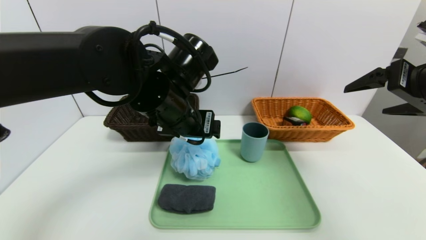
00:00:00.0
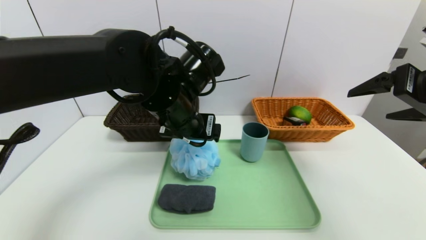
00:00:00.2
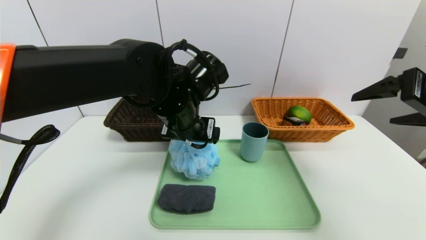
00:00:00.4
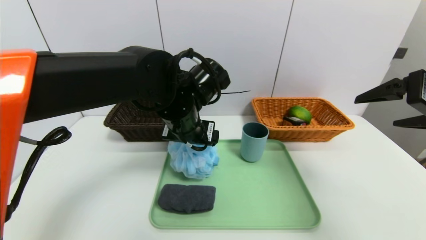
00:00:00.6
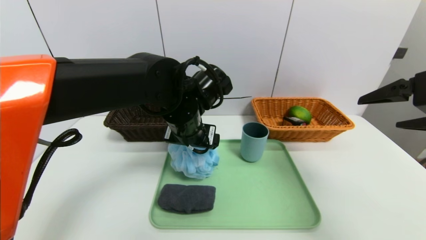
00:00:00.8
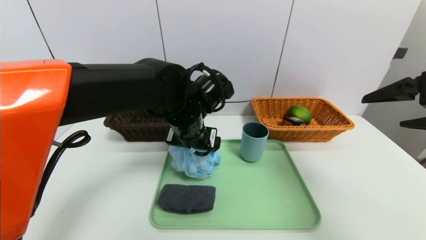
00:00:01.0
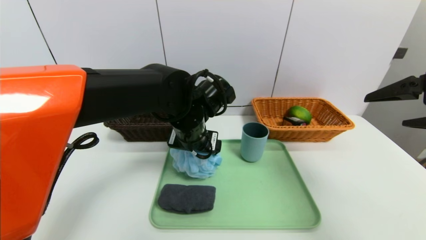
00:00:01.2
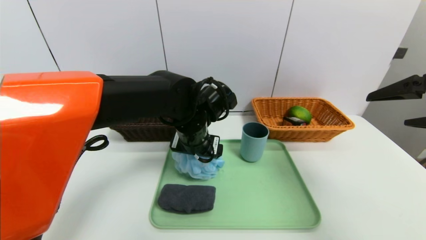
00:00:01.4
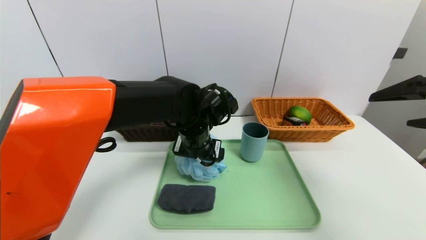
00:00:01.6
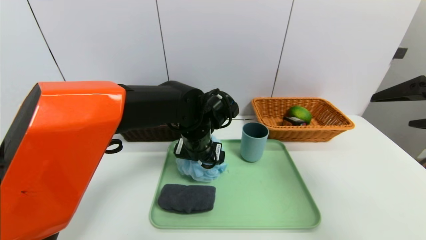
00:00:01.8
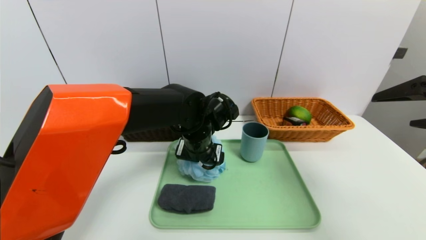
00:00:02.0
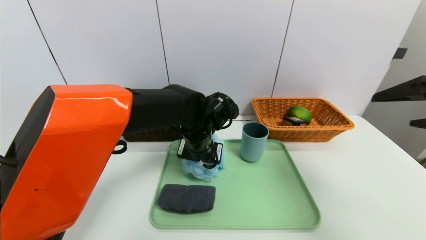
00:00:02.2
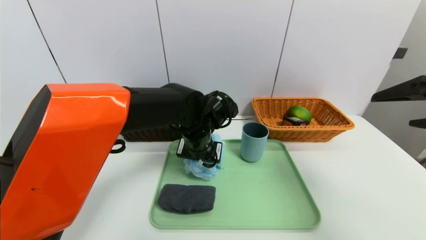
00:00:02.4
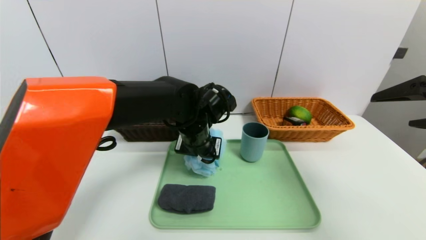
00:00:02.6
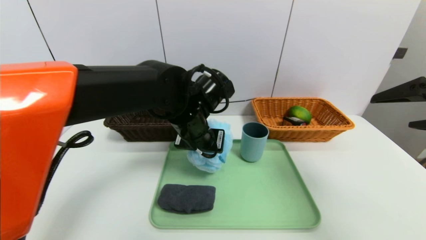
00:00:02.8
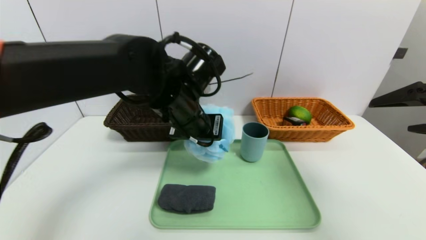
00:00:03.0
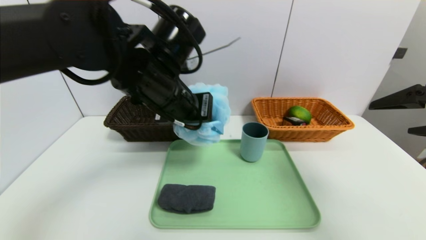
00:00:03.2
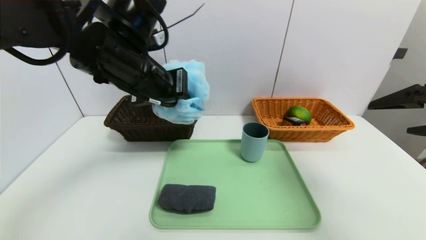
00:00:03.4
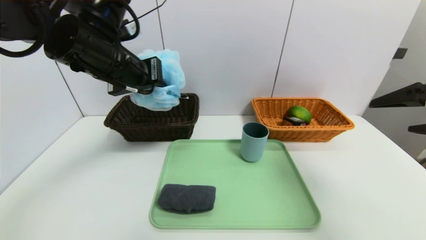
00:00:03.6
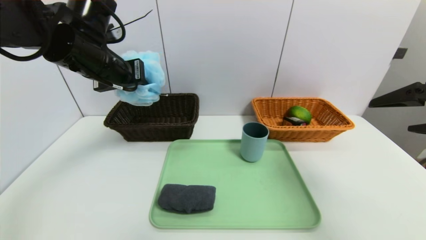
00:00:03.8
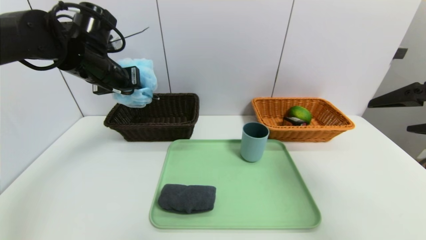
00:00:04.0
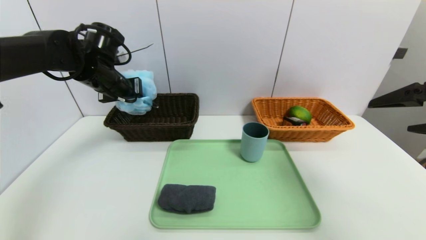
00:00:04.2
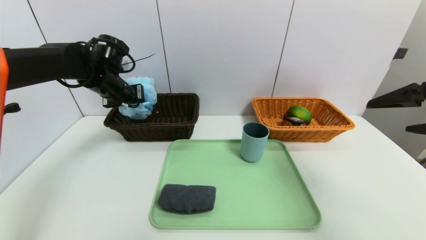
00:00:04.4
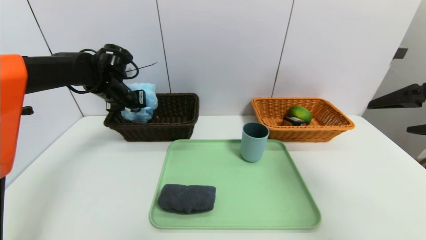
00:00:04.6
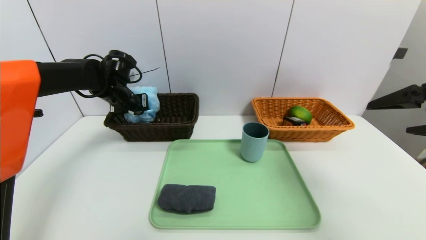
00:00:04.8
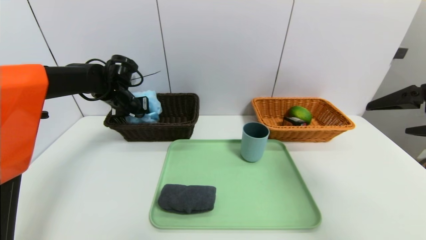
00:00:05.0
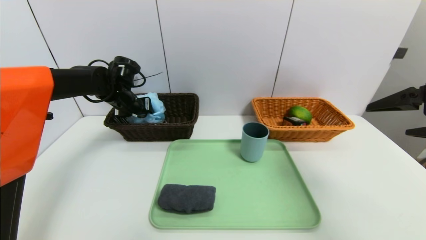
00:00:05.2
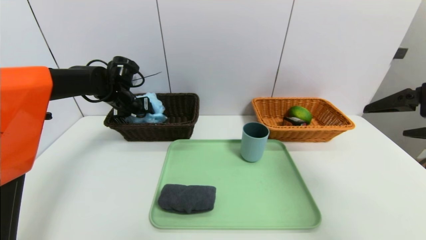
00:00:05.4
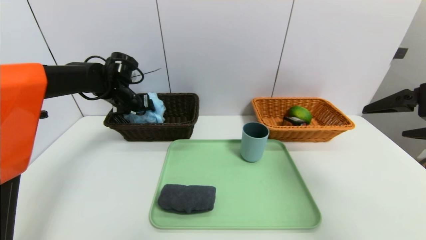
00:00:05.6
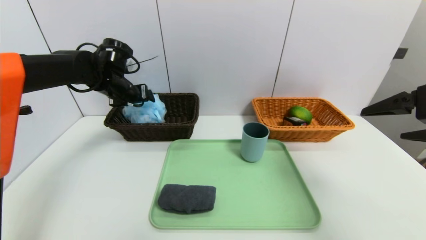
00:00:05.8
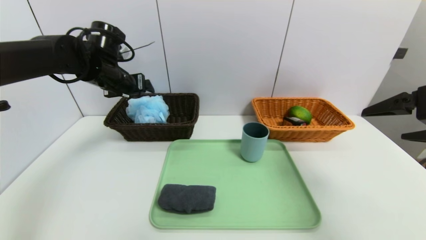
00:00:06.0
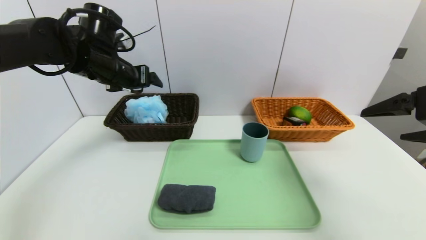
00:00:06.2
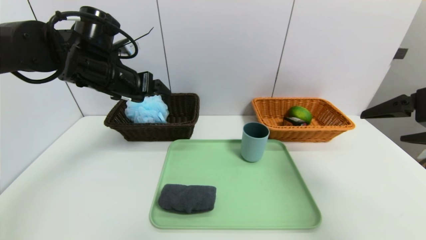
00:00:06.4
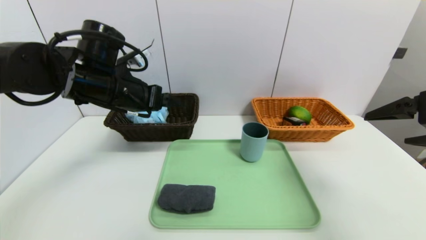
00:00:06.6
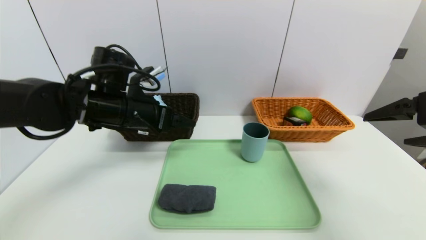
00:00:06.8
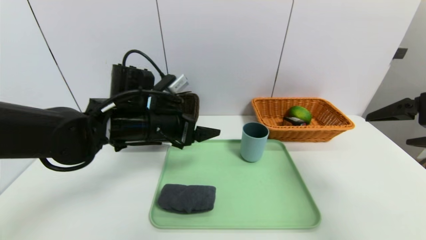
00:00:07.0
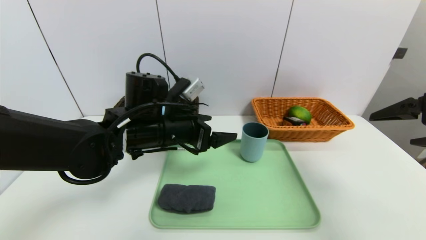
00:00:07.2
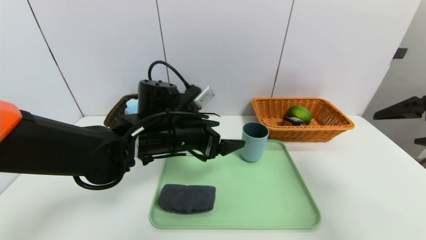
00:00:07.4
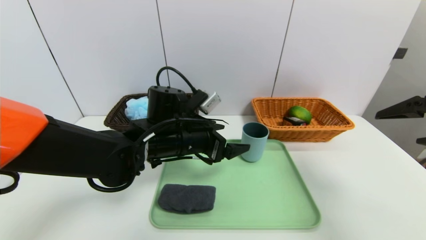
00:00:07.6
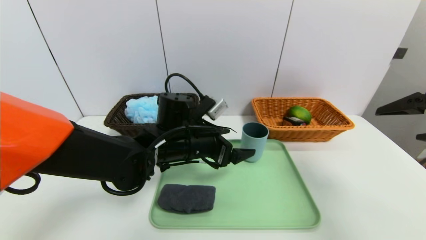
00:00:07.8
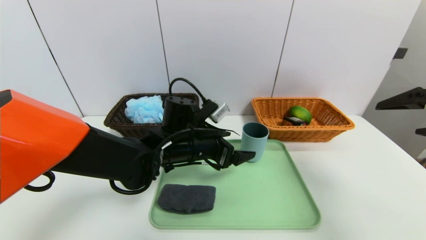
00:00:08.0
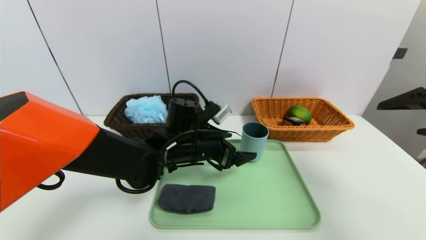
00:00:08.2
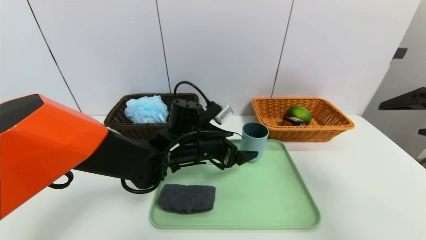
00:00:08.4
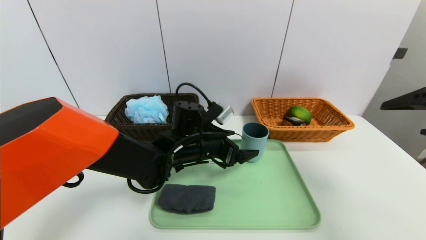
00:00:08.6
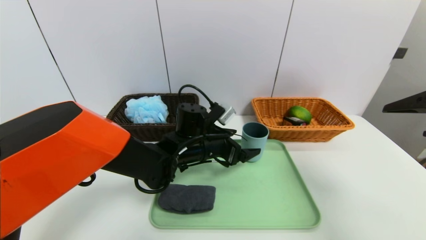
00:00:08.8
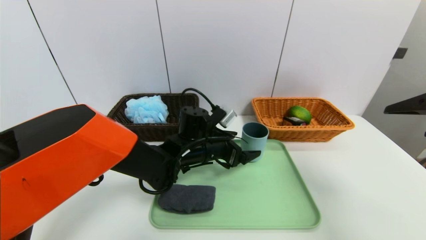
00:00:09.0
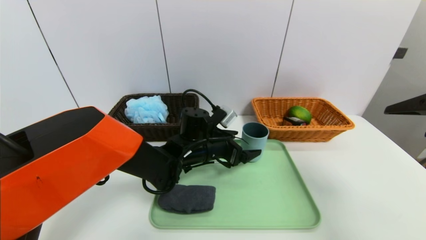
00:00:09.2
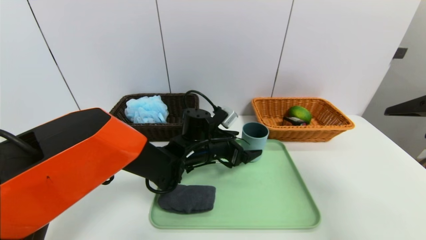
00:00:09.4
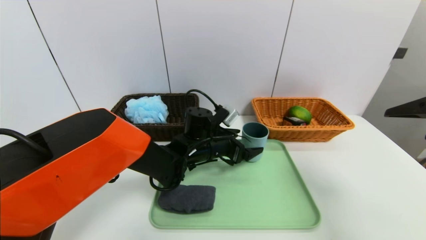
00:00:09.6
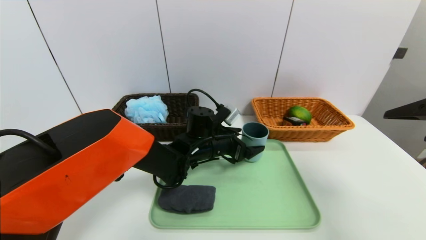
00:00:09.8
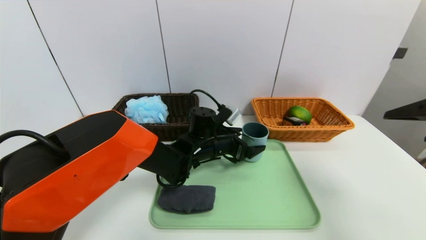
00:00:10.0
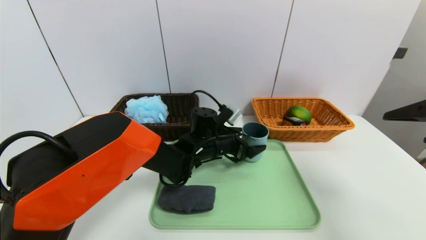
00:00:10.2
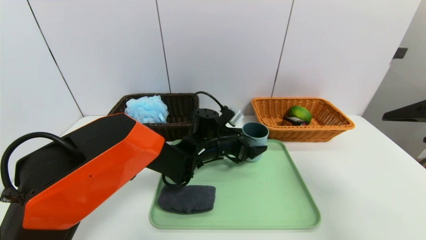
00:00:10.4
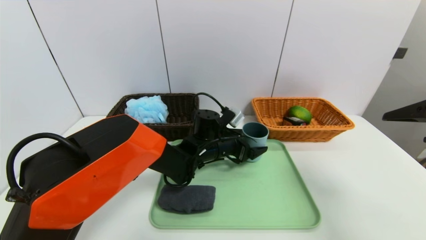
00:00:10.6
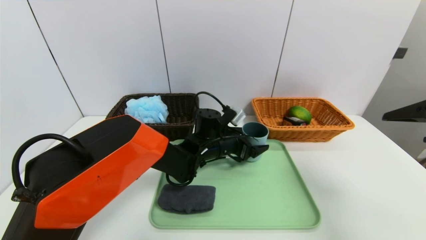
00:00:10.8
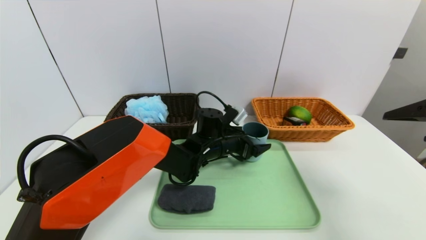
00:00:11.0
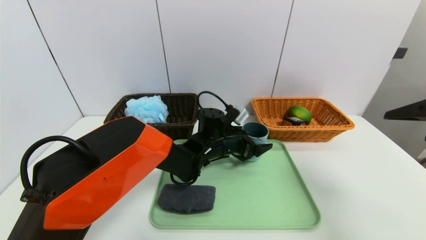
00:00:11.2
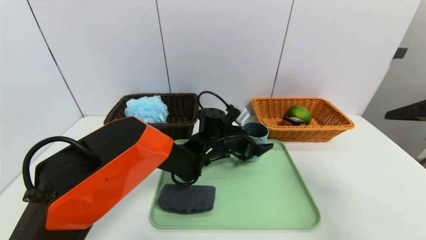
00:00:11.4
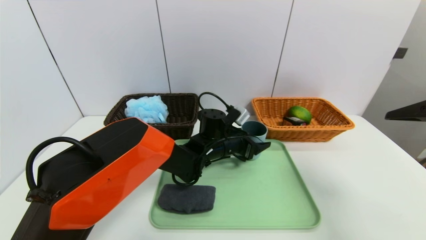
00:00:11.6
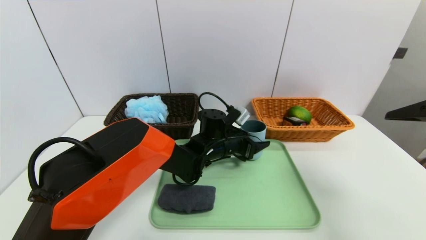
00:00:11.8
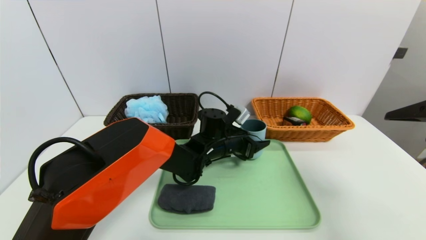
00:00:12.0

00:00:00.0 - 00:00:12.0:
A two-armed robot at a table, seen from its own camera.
Task of the whole recording: place the food in the right basket with the right gripper, and place the non food items in the left basket with the left gripper.
Step, 00:00:00.0 - 00:00:06.0: Grasp the bath ball and put it in the left basket.
00:00:00.0 - 00:00:01.6: The right gripper heads backward, covering about 5 cm. The left gripper moves downward, roughly 10 cm.
00:00:01.6 - 00:00:03.0: The left gripper moves upward, approximately 10 cm, and closes up.
00:00:03.0 - 00:00:04.4: The left gripper shifts approximately 20 cm to the left and forward.
00:00:04.4 - 00:00:06.0: The left gripper opens.
00:00:06.0 - 00:00:07.6: The left gripper travels to the right, backward and downward by roughly 20 cm.
00:00:07.6 - 00:00:09.0: The left gripper heads downward, covering roughly 5 cm.
00:00:09.0 - 00:00:10.4: There are only small adjustments of the grippers.
00:00:10.4 - 00:00:12.0: The left gripper closes.

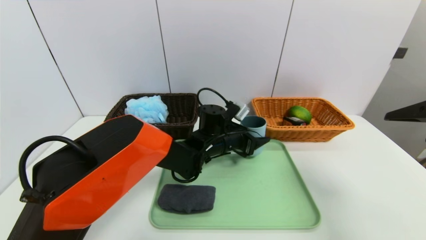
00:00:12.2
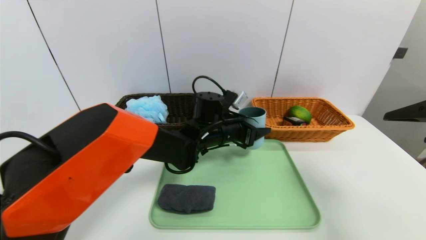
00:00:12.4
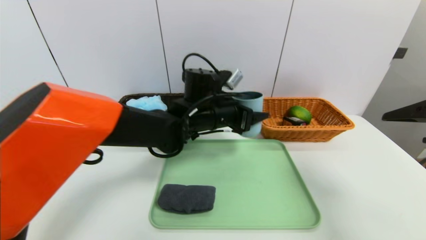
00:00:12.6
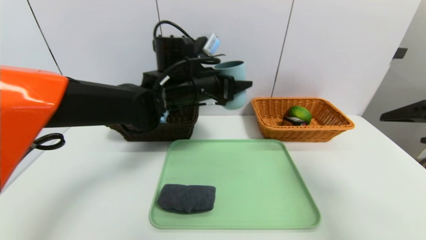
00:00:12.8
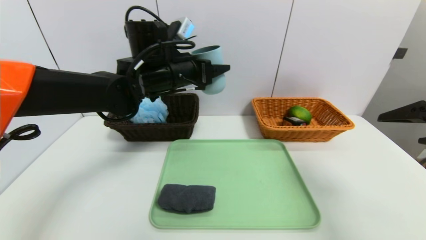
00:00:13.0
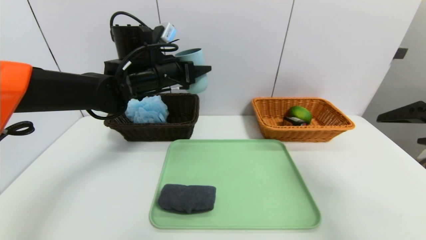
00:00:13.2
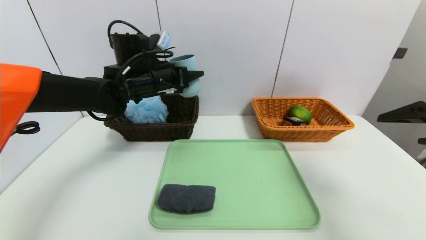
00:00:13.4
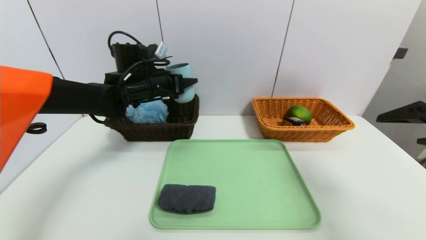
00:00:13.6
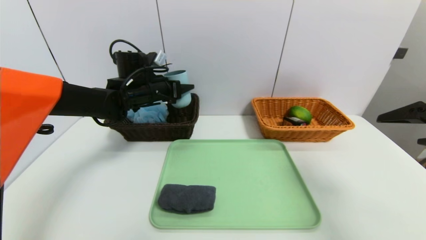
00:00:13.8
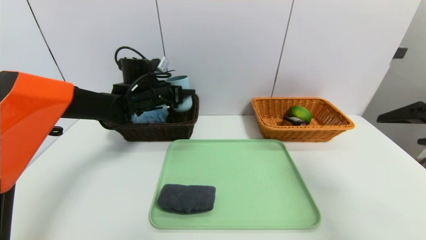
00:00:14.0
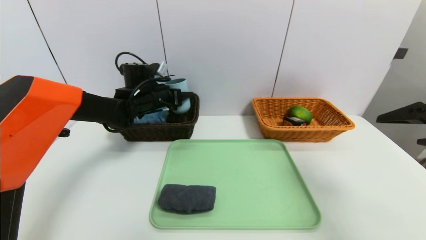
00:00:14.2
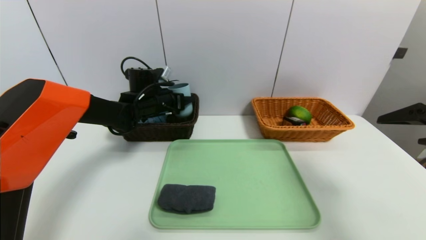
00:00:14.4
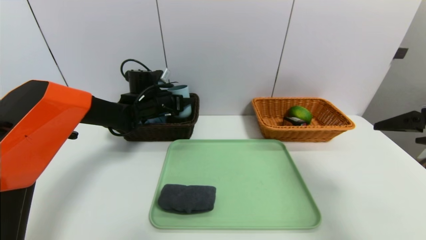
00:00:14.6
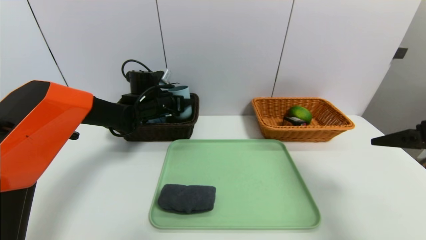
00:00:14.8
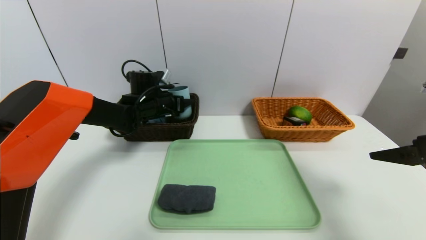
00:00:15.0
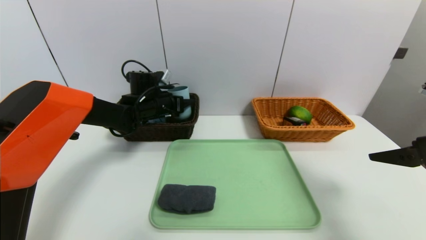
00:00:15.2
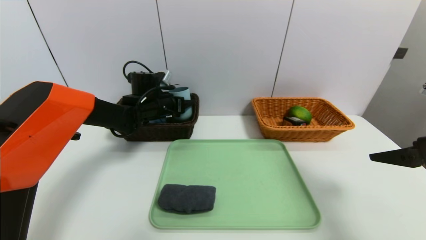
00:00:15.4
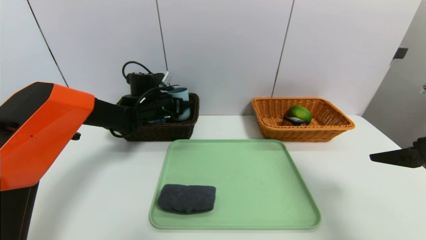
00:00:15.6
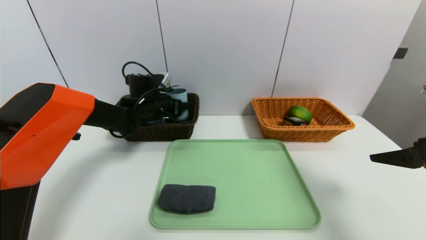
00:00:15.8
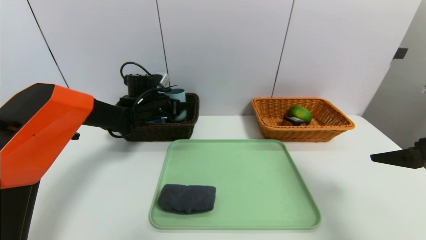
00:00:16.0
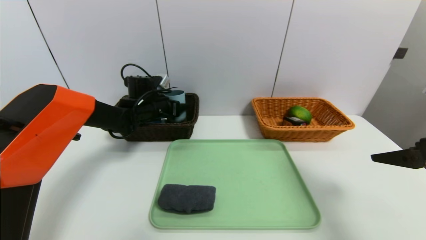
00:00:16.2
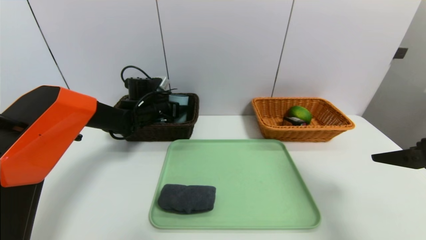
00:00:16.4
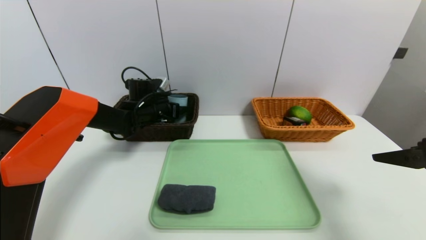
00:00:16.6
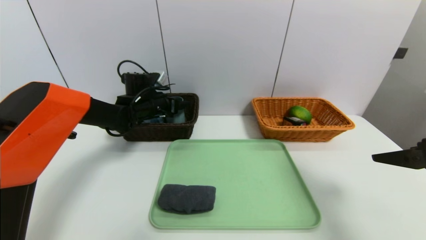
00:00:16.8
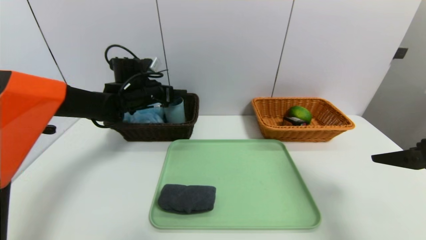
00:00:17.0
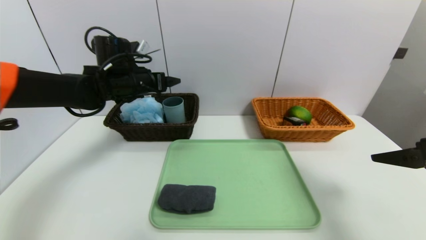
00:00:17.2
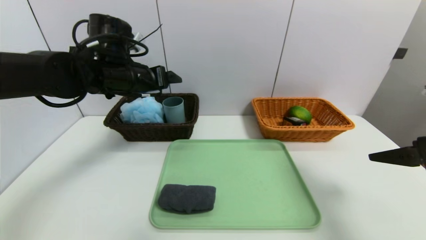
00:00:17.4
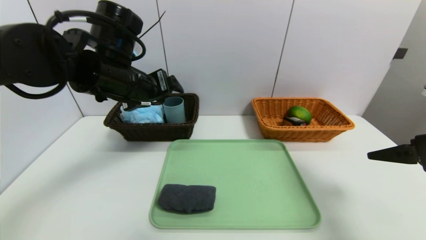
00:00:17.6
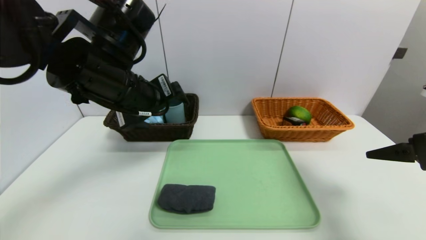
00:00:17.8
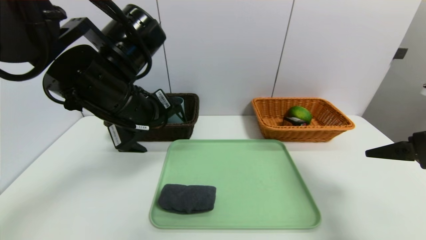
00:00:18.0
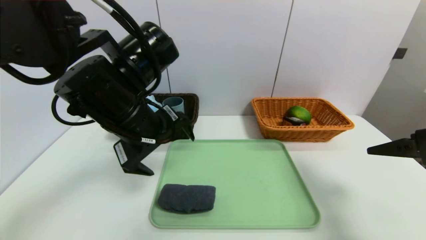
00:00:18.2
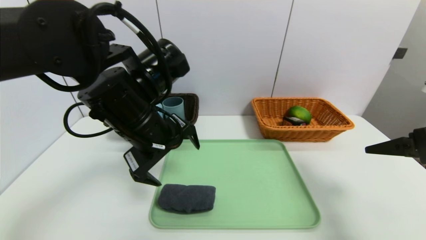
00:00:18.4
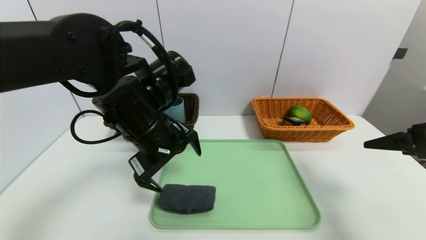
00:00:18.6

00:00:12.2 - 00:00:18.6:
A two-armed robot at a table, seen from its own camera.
Task of the whole recording: place the food in the right basket with the right gripper, and place the non food items in the left basket with the left gripper.
Step, 00:00:12.2 - 00:00:17.2: Grasp the blue cup and put it in the left basket.
00:00:12.2 - 00:00:13.8: The left gripper moves to the left and upward, some 20 cm.
00:00:13.8 - 00:00:15.4: The left gripper travels downward by about 5 cm.
00:00:15.4 - 00:00:17.0: The left gripper changes place by approximately 5 cm.
00:00:17.0 - 00:00:18.6: The left gripper goes some 20 cm backward and to the right.
